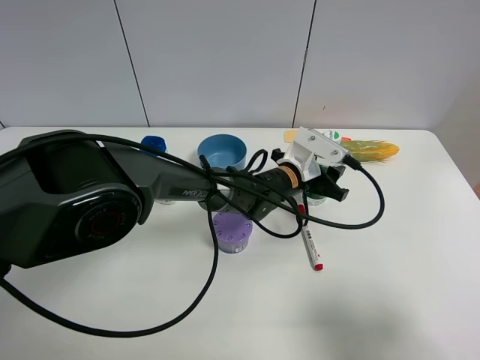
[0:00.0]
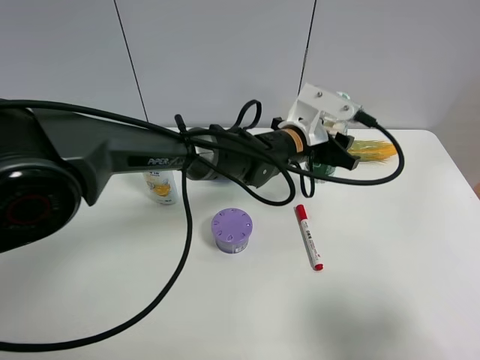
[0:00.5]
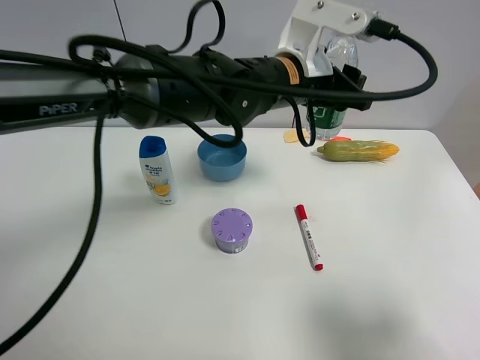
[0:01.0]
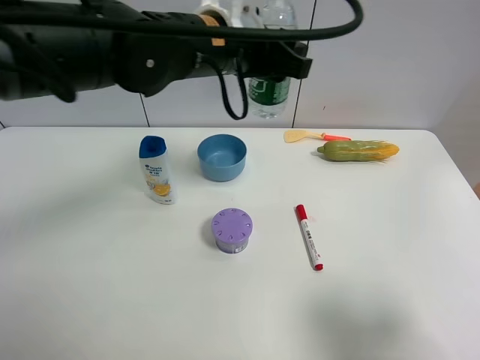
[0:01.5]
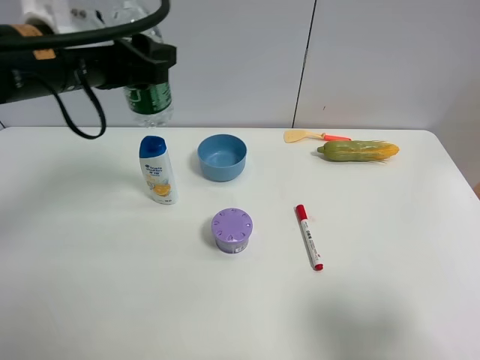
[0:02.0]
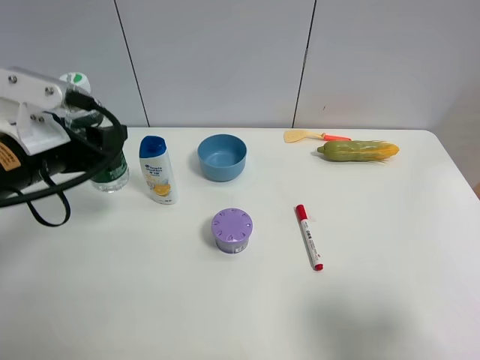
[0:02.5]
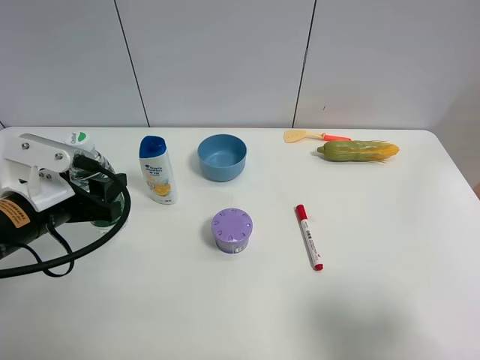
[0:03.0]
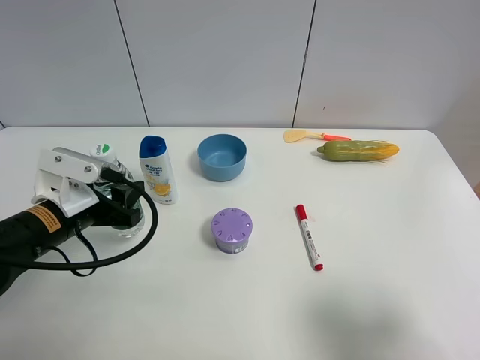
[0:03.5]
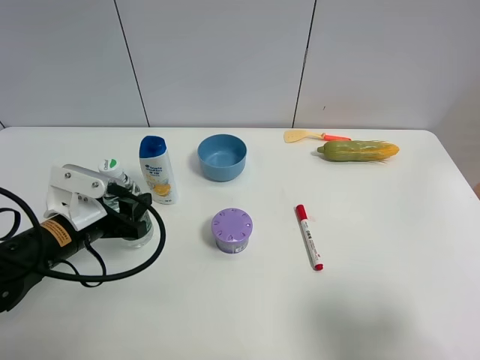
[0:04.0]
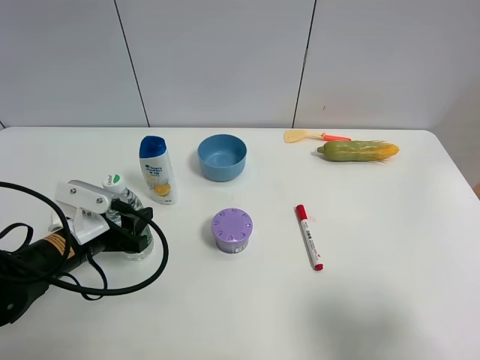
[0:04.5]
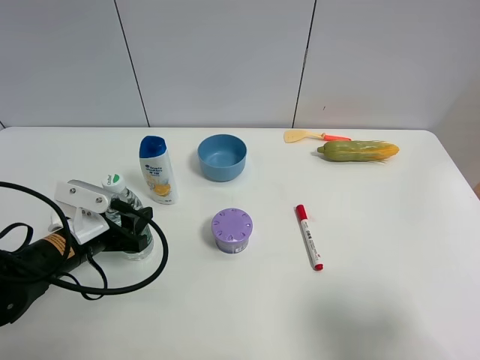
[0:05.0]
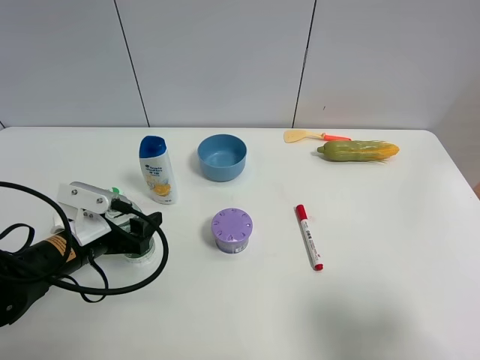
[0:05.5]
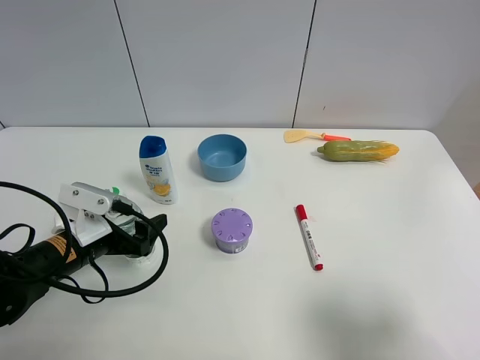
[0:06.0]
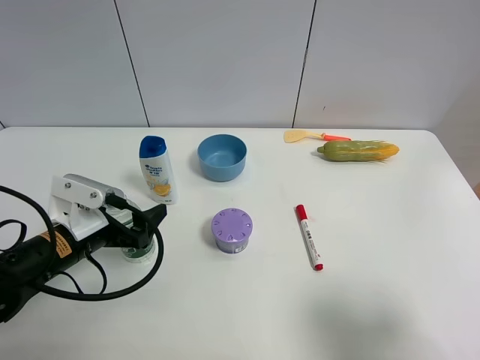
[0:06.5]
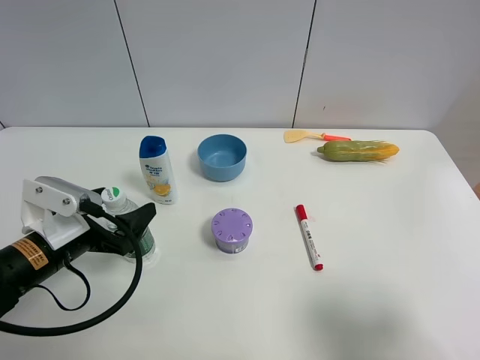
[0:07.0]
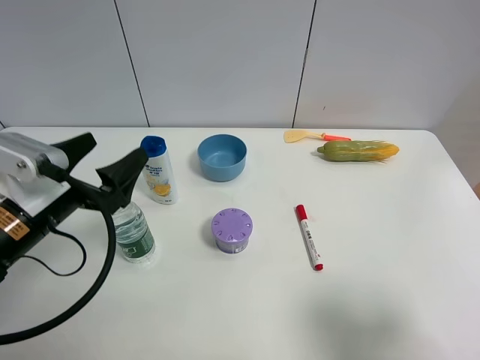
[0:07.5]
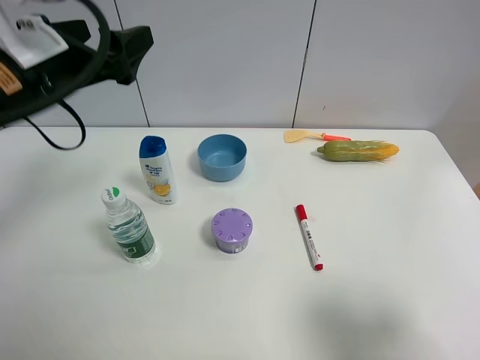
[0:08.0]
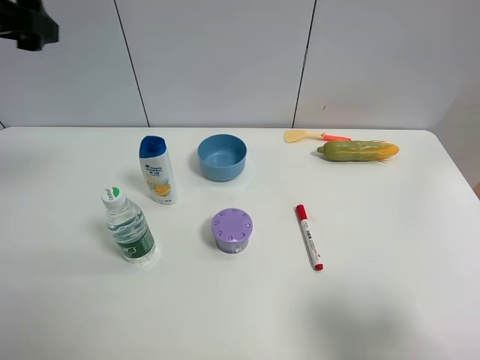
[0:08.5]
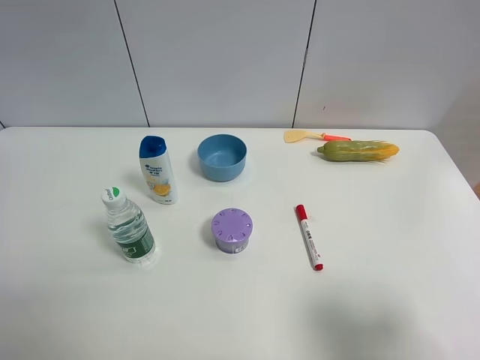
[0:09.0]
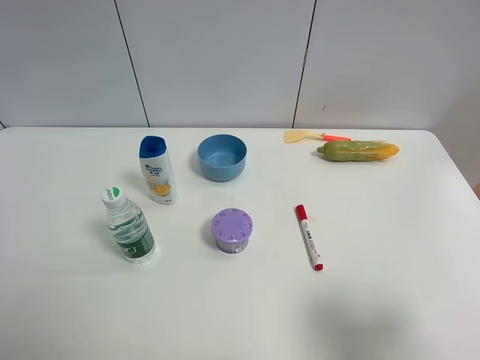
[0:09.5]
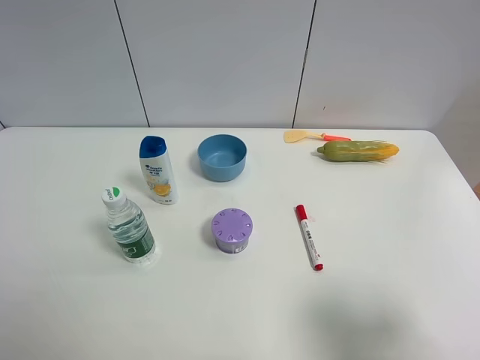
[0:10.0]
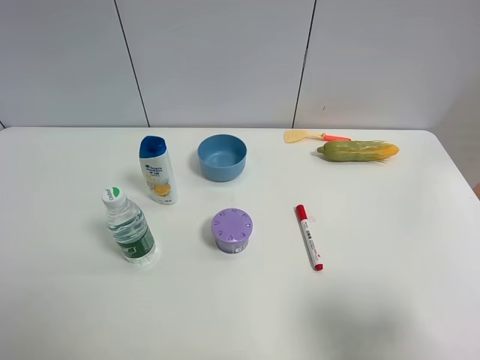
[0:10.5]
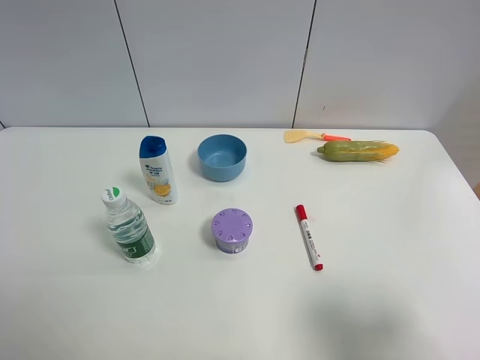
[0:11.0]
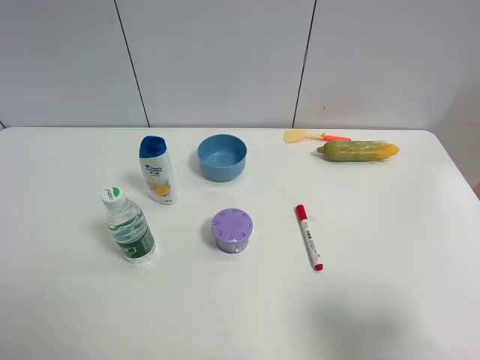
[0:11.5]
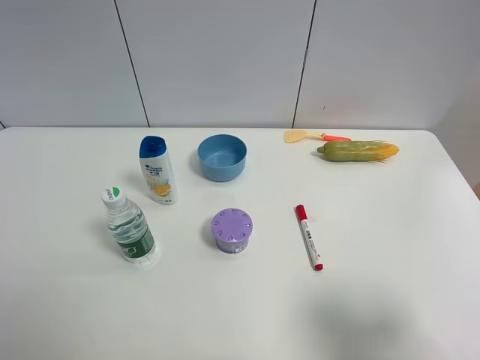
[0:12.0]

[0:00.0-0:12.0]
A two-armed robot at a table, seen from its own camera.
Task of the whole recording: the gripper move the object.
Step, 0:00.0 to 0:05.0: Place the YiBao mineral water on the table with the left gripper.
0:00.0 to 0:02.0: The left gripper goes about 35 cm to the left and upward.
0:02.0 to 0:04.0: The left gripper moves downward, roughly 20 cm.
0:04.0 to 0:06.0: The left gripper opens.
0:06.0 to 0:08.0: The left gripper is displaced upward by some 25 cm.
0:08.0 to 0:10.0: The left gripper moves backward and to the left, about 30 cm.

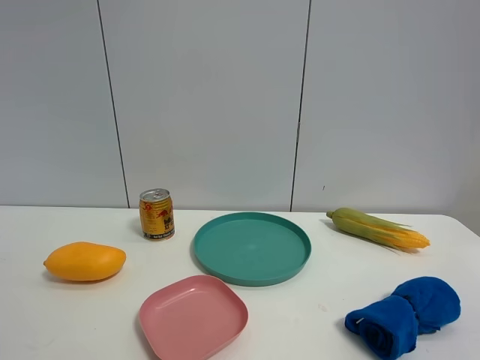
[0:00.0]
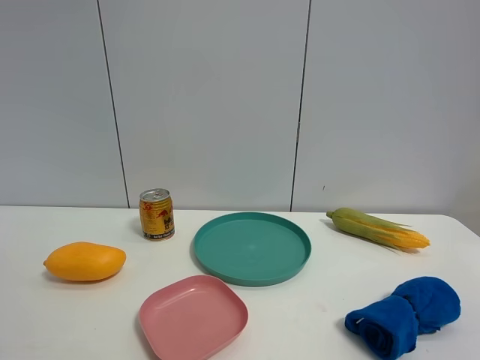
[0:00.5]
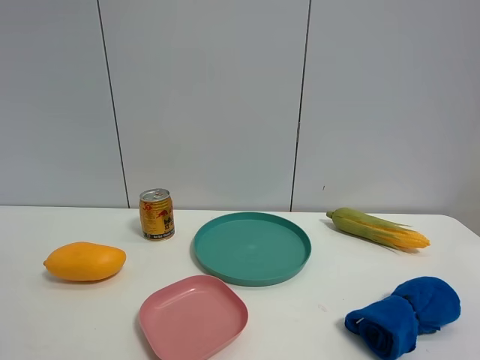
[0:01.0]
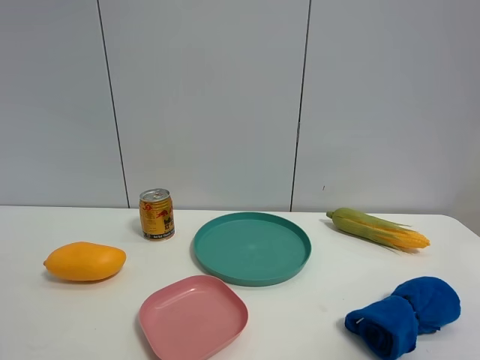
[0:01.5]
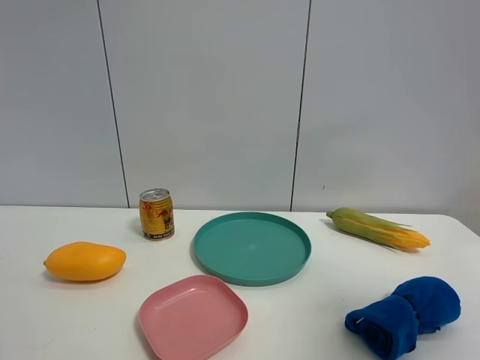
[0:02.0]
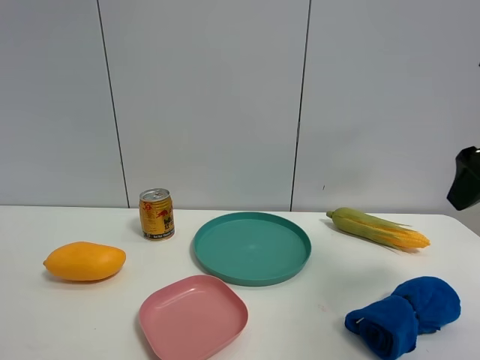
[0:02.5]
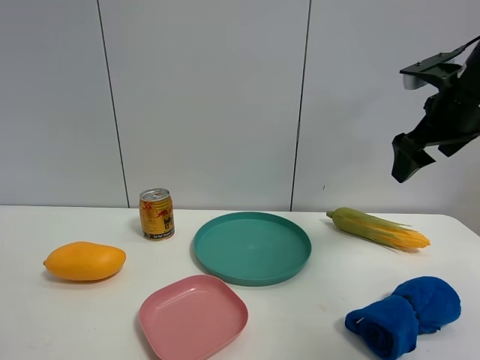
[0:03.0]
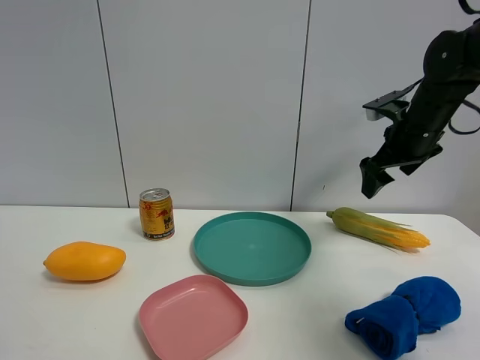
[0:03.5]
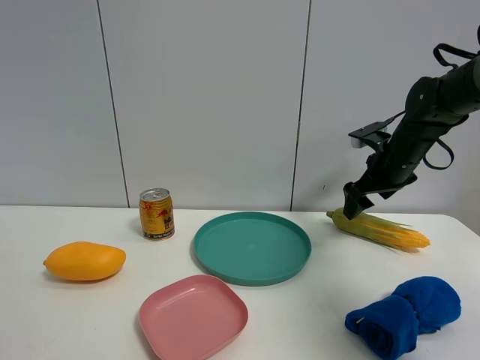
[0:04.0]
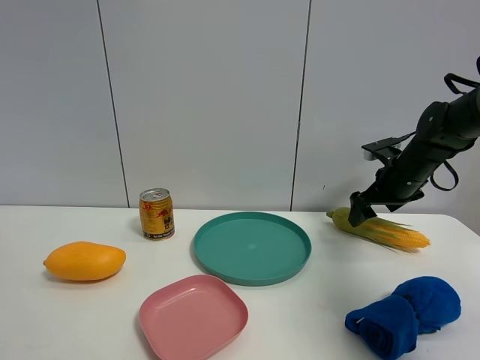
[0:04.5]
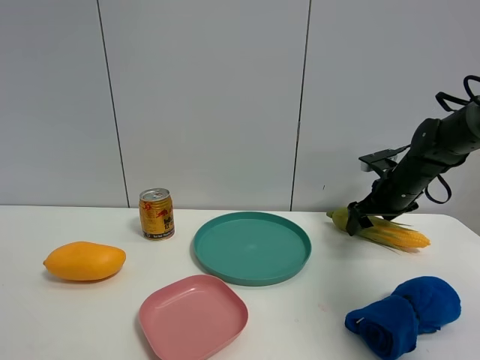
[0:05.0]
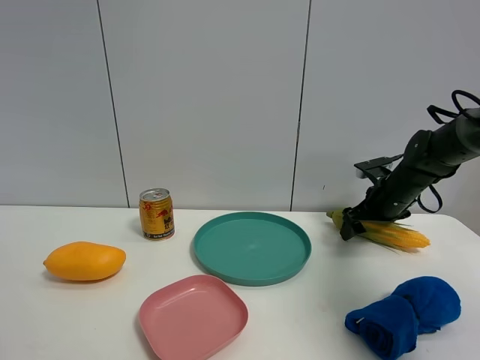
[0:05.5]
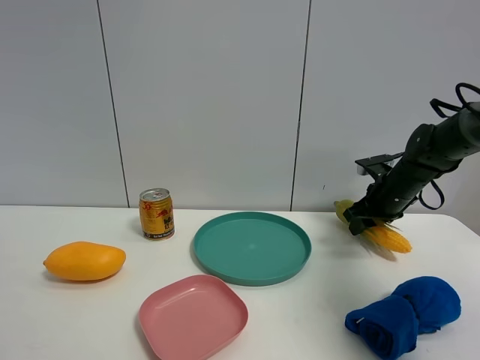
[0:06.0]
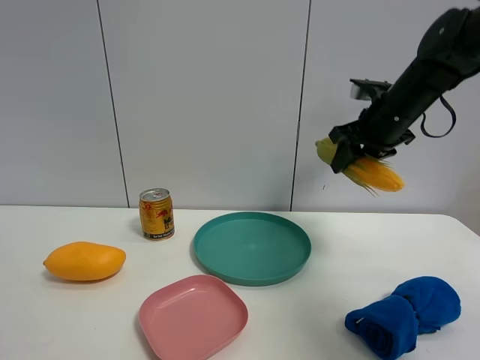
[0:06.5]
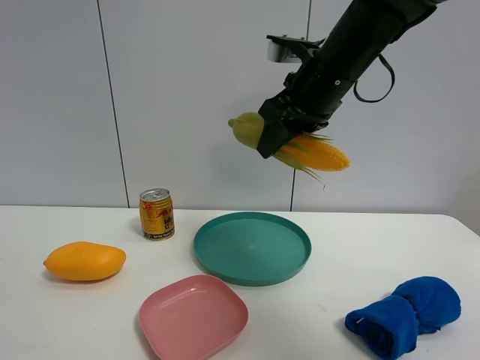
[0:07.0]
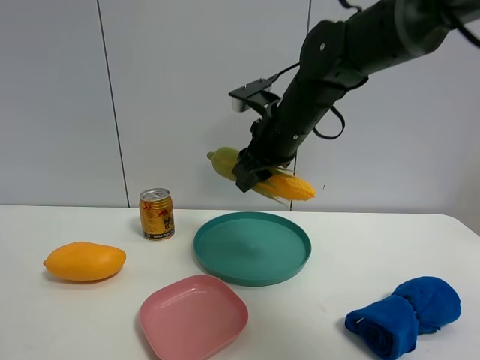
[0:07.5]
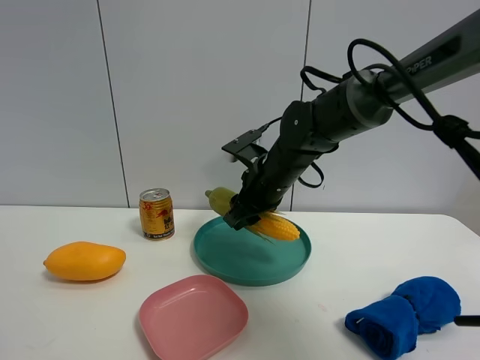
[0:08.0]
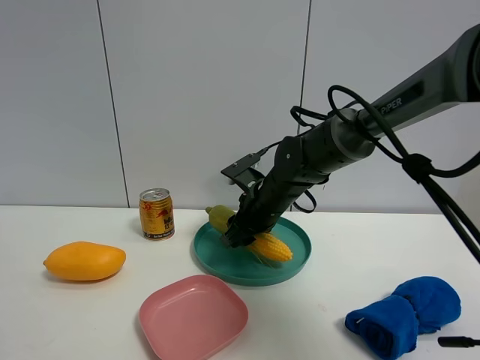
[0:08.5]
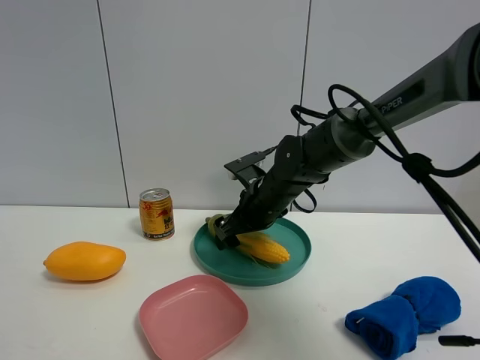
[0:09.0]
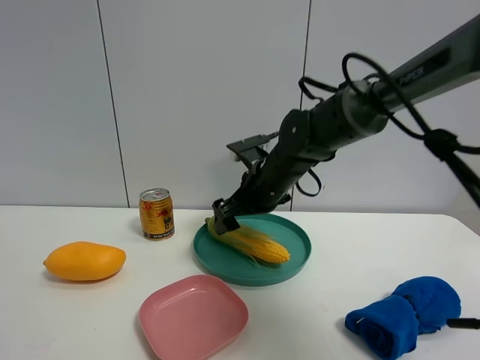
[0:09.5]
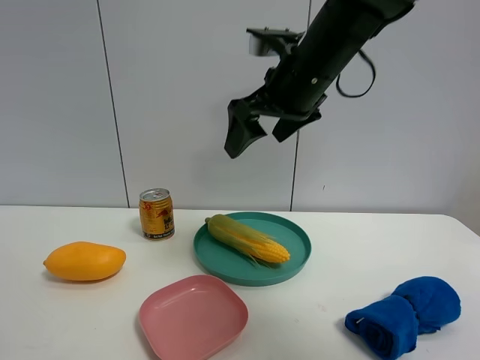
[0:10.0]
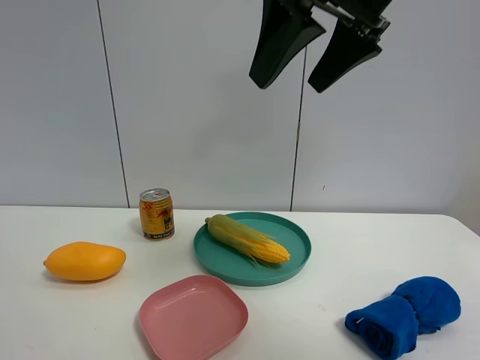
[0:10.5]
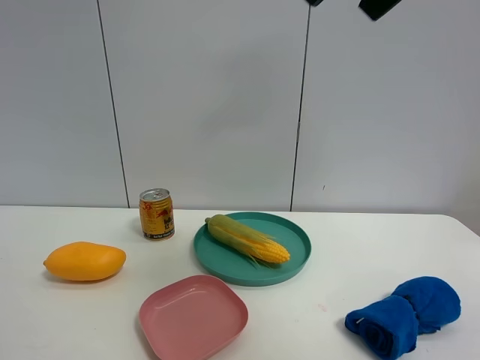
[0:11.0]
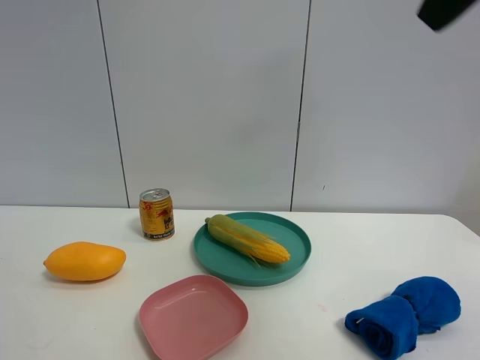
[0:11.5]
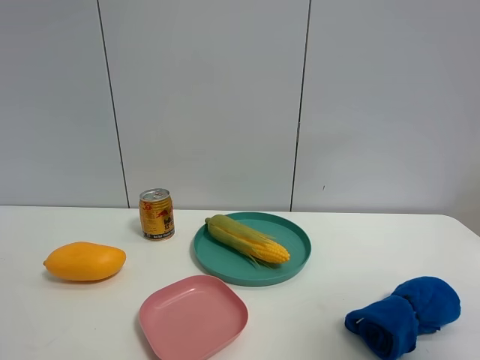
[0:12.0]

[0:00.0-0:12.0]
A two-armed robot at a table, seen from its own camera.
Task of the whole recording: the gripper move the object.
Step, 0:00.0 to 0:05.5: Grasp the corn with the right gripper.
Step, 0:06.0 to 0:09.0: Place the corn into the green plate with the right gripper.
0:00.0 to 0:02.0: The right gripper is displaced forward and upward by about 15 cm.
0:02.0 to 0:04.0: The right gripper is displaced forward and downward by about 40 cm.
0:04.0 to 0:06.0: The right gripper shifts approximately 5 cm downward, and closes.
0:06.0 to 0:08.0: The right gripper goes some 25 cm to the left.
0:08.0 to 0:10.0: The right gripper is displaced upward by some 15 cm, and opens its fingers.
0:10.0 to 0:12.0: The right gripper shifts approximately 35 cm backward and to the right.

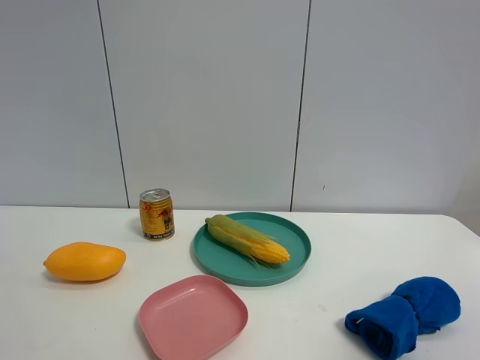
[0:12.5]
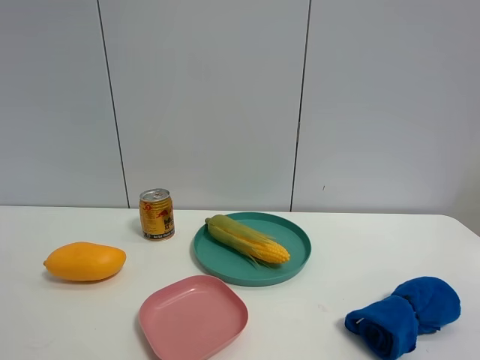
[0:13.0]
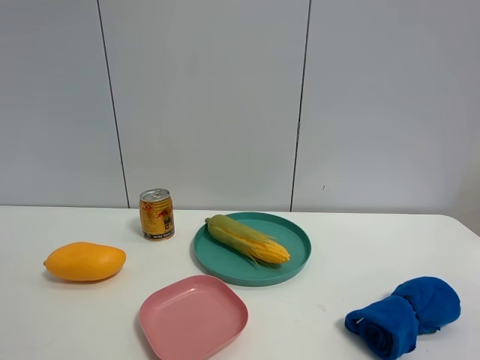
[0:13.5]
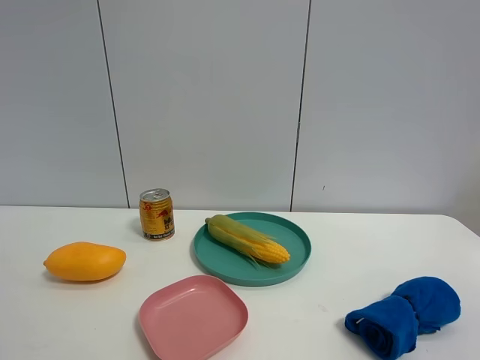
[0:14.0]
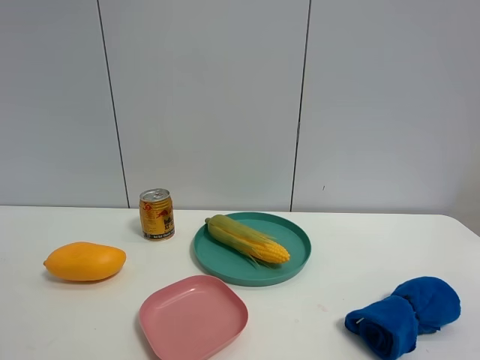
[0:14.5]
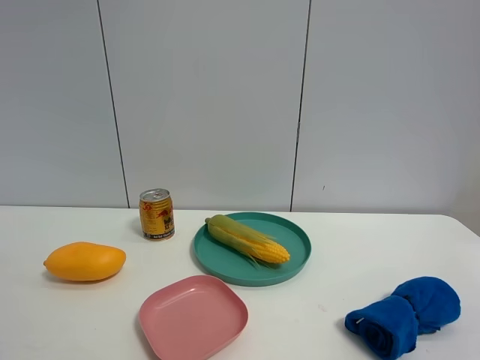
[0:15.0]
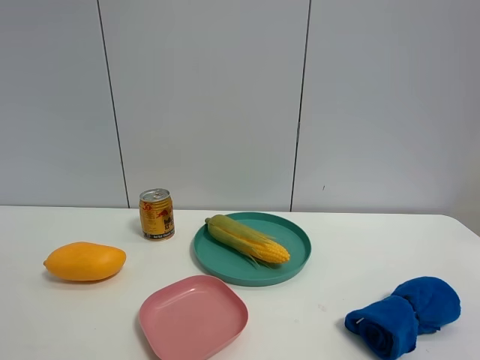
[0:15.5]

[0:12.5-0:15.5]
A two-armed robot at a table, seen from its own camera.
Task of the whole recording: the gripper move the object.
0:14.0 to 0:15.5: Both grippers stay put.
